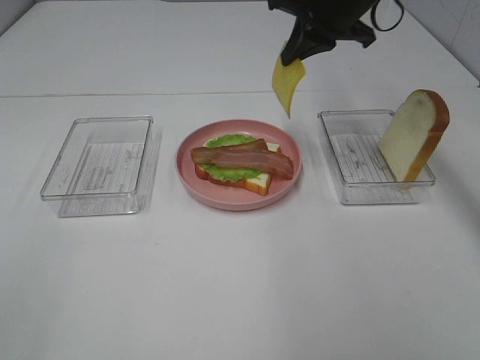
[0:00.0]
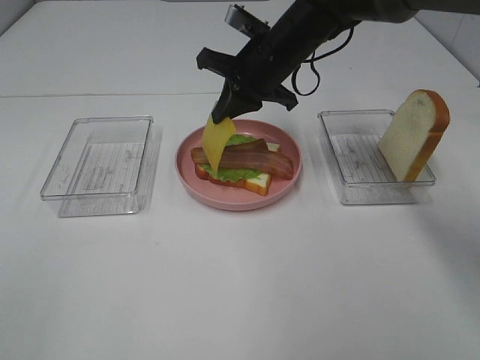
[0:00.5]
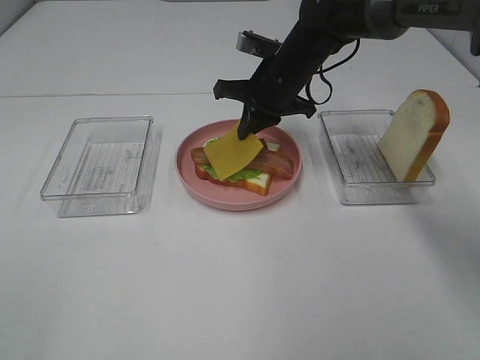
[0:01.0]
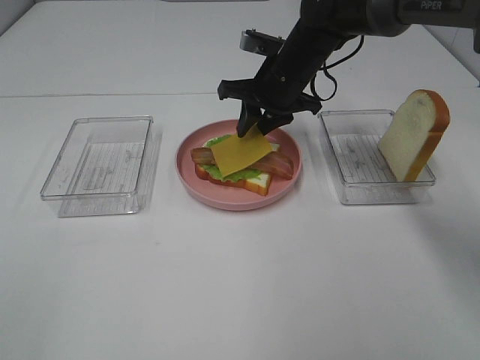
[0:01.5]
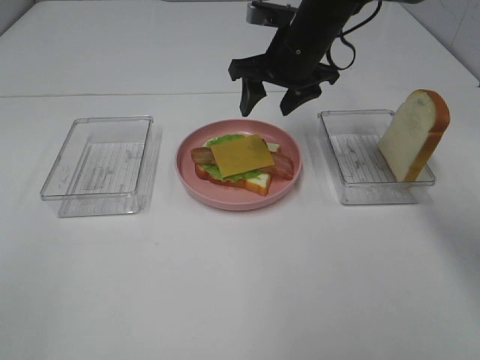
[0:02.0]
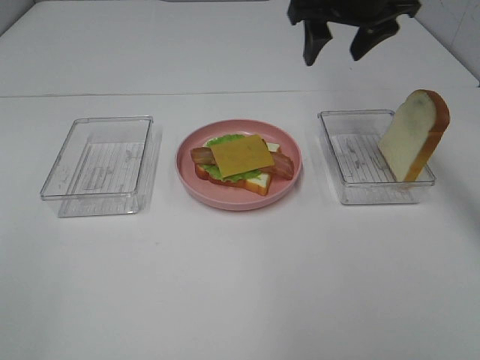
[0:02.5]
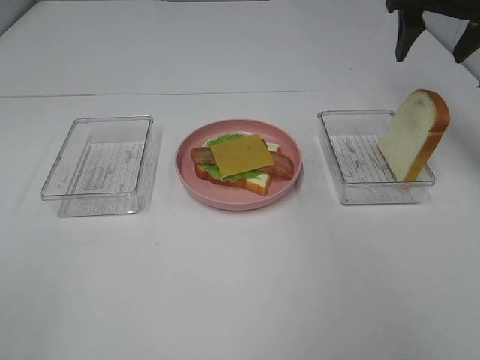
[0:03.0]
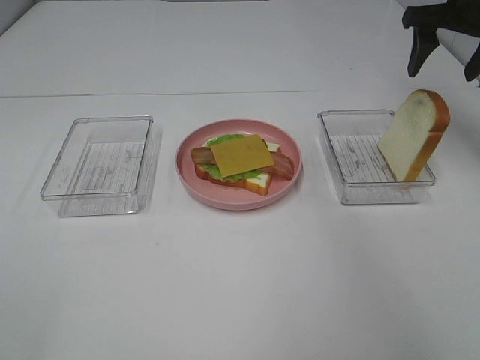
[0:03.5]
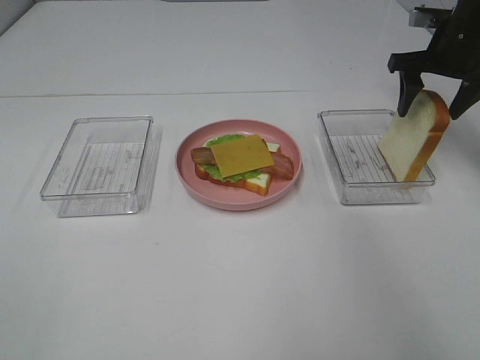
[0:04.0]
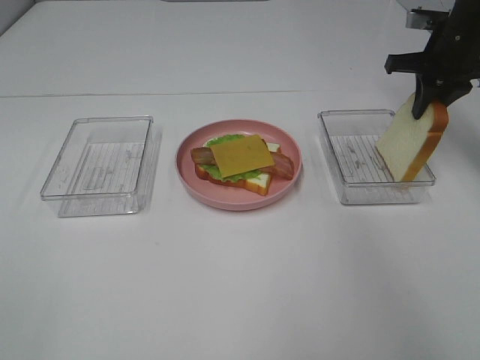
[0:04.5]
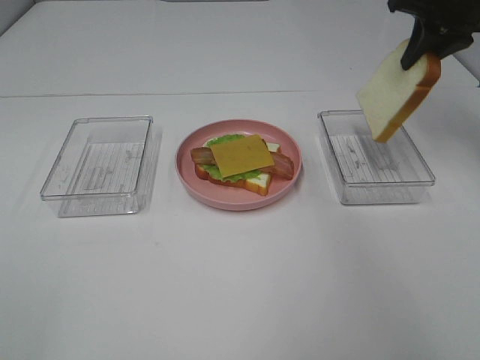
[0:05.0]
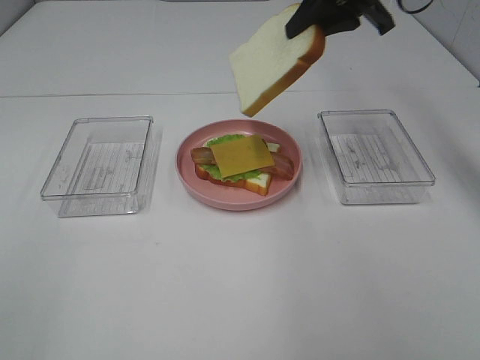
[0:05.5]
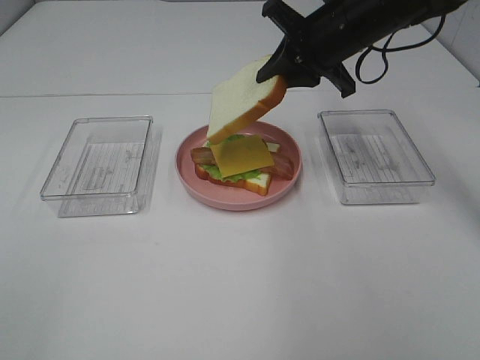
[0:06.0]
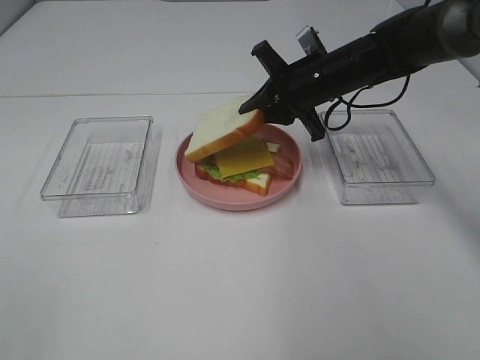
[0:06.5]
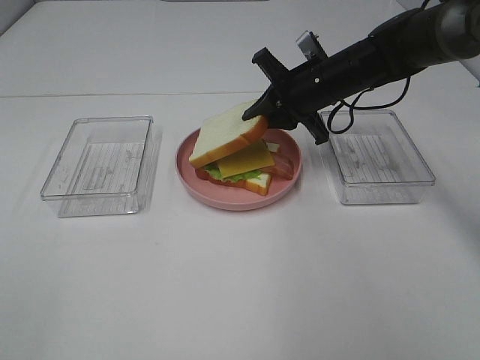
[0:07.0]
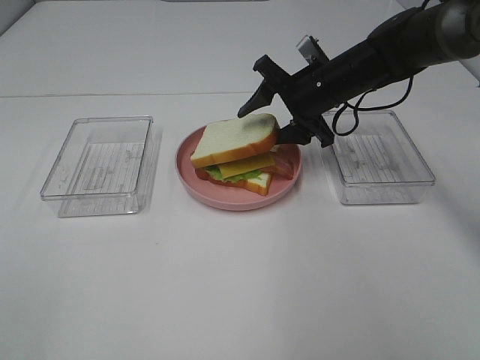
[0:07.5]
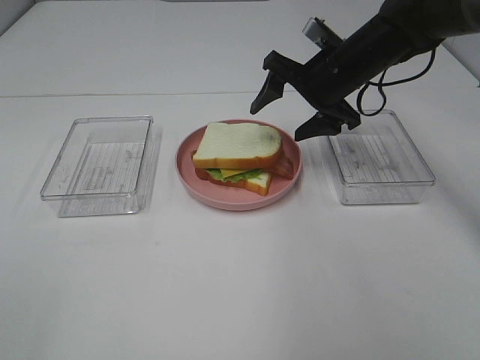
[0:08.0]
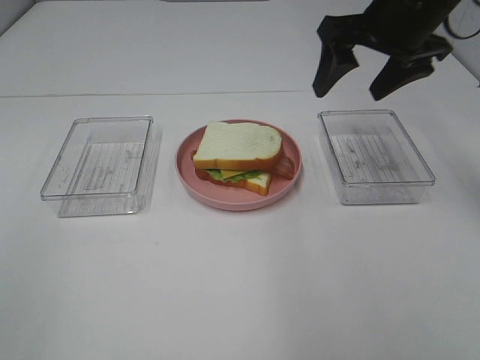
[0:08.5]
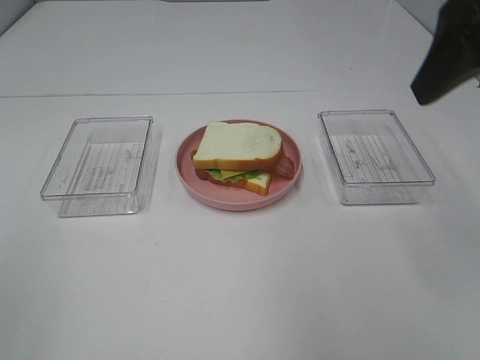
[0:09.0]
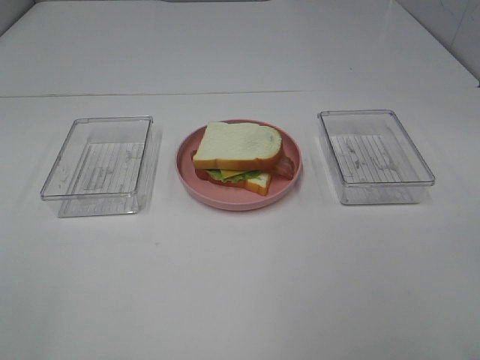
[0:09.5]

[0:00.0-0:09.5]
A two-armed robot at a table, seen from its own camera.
Task of the whole recording: Make sandwiches.
Step, 0:00.0 to 0:01.5: Right hand:place the cheese slice on top of the bacon.
Step, 0:02.0 to 0:04.0: Right hand:grab the bread slice.
Step, 0:04.5 to 0:08.0: Right hand:place the bread slice on the cheese slice.
0:00.0 to 0:02.0: The right gripper goes about 5 cm downward, and opens up.
0:02.0 to 0:04.0: The right gripper heads to the right, covering approximately 20 cm.
0:04.0 to 0:05.5: The right gripper goes about 15 cm to the left and upward, and closes its fingers.
0:05.5 to 0:07.5: The right gripper goes about 15 cm downward, and opens.
0:07.5 to 0:09.5: The right gripper goes approximately 40 cm backward and upward.

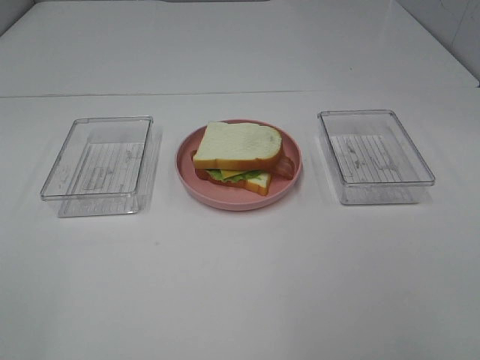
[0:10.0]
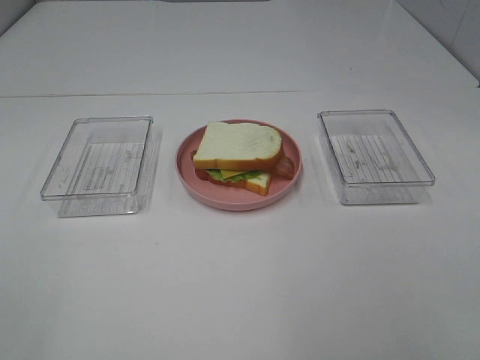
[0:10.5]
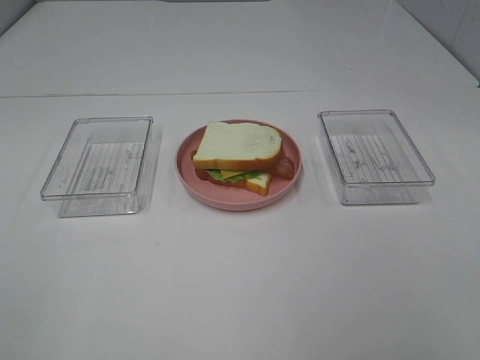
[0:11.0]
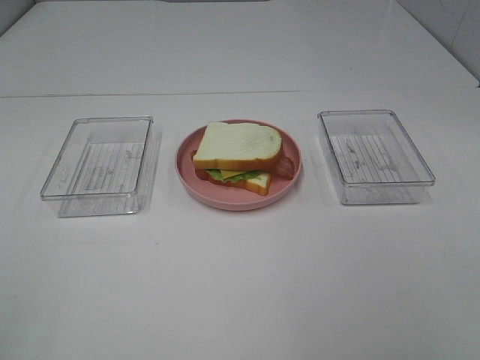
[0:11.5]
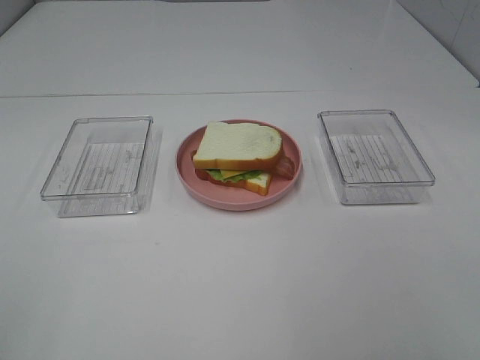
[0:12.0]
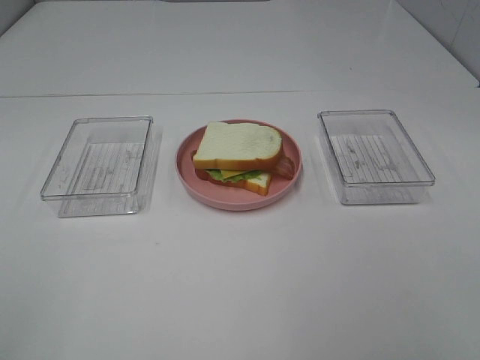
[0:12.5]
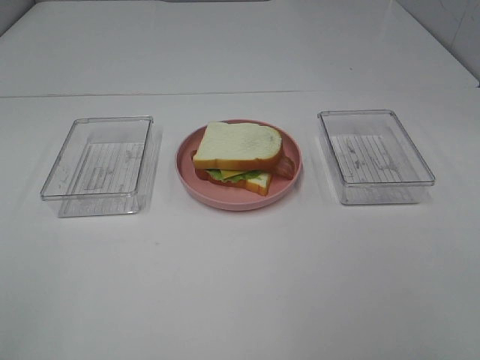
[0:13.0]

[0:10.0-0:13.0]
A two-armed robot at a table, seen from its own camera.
Task of the whole recording: Make sandwiches.
0:11.5 to 0:13.0: Both grippers stay about where they are.

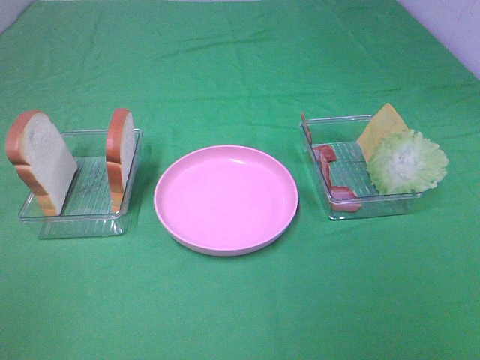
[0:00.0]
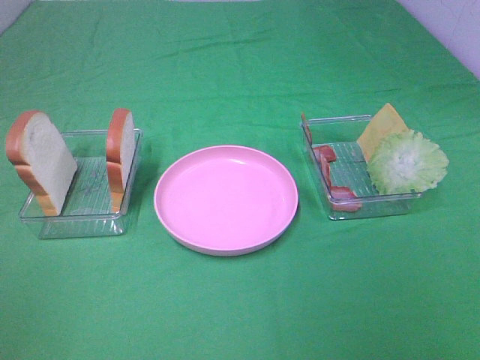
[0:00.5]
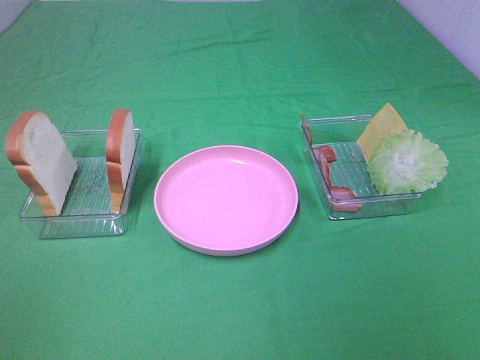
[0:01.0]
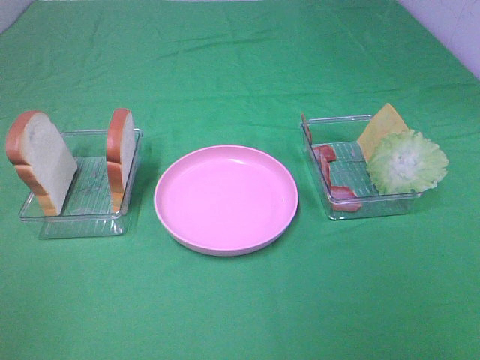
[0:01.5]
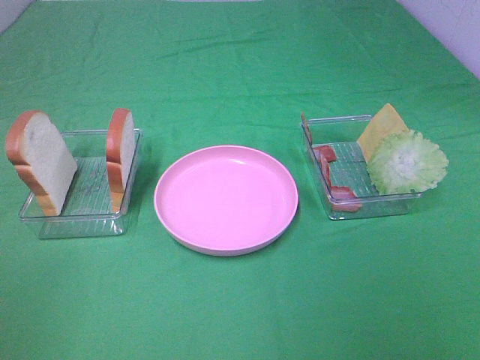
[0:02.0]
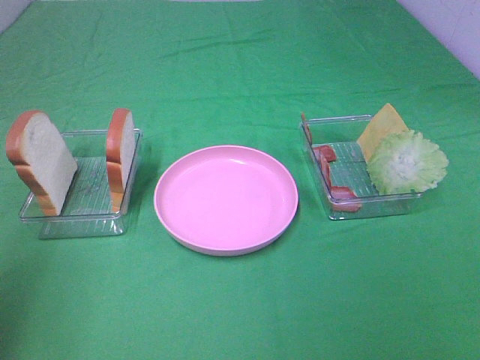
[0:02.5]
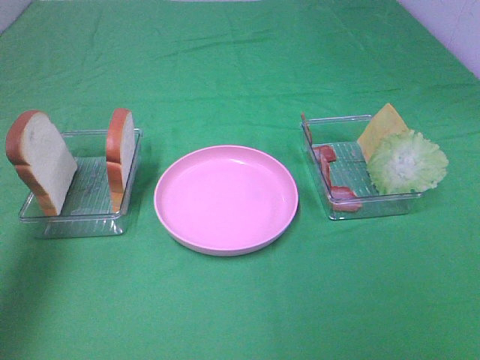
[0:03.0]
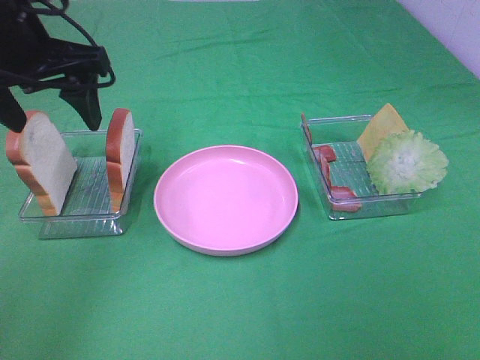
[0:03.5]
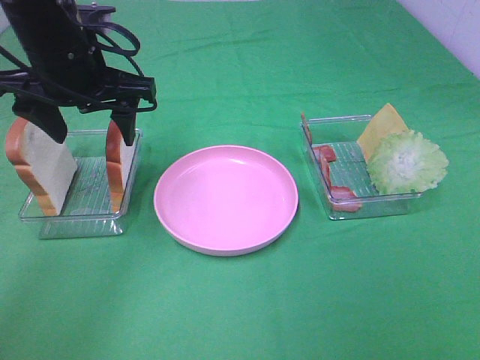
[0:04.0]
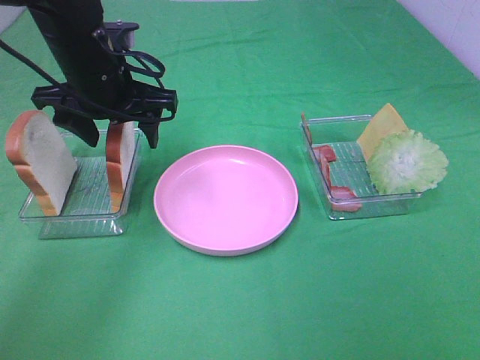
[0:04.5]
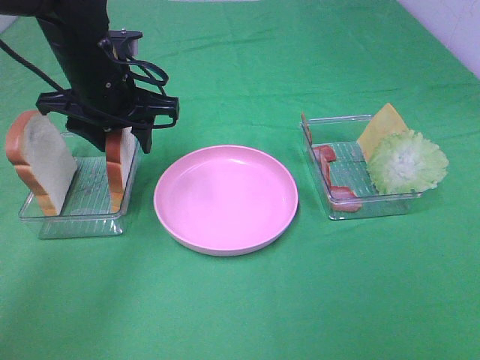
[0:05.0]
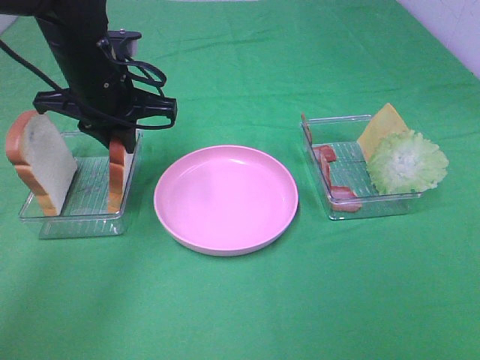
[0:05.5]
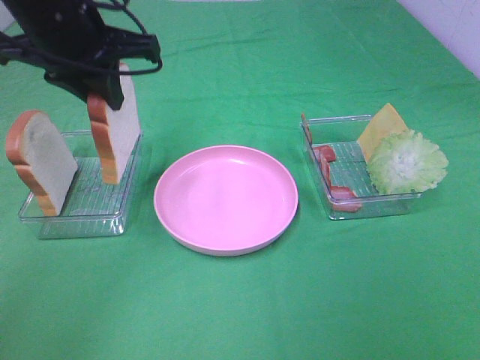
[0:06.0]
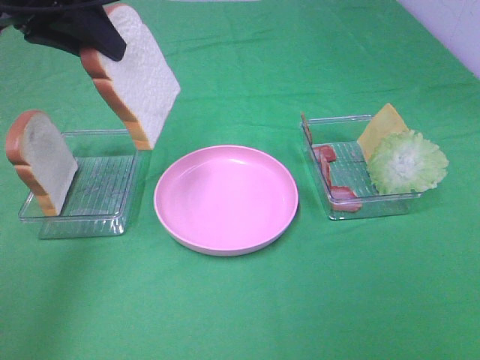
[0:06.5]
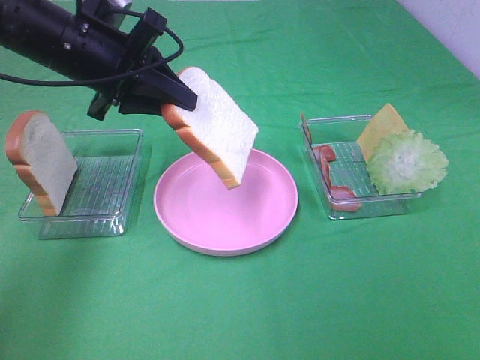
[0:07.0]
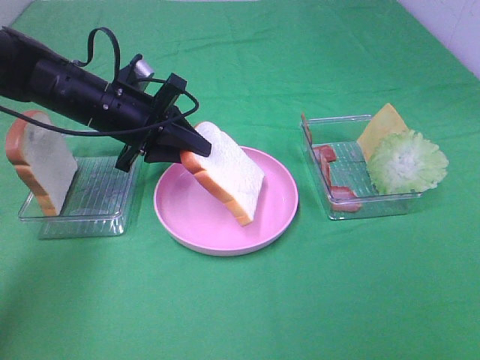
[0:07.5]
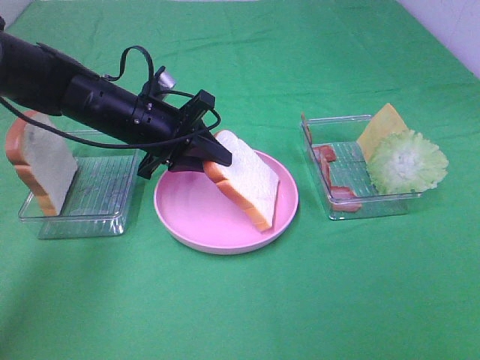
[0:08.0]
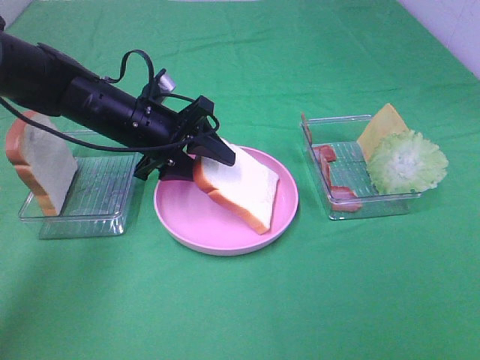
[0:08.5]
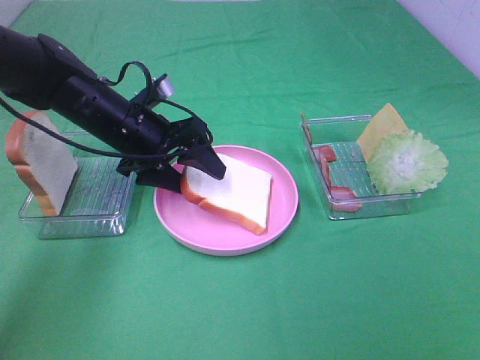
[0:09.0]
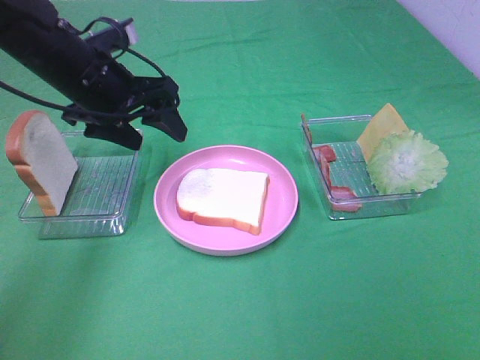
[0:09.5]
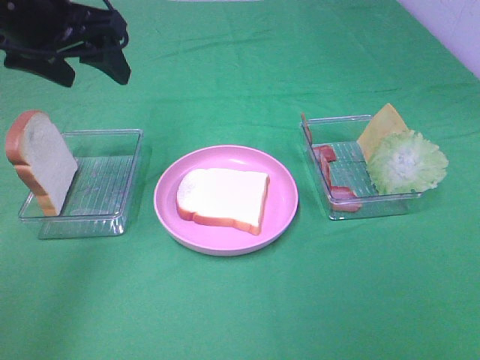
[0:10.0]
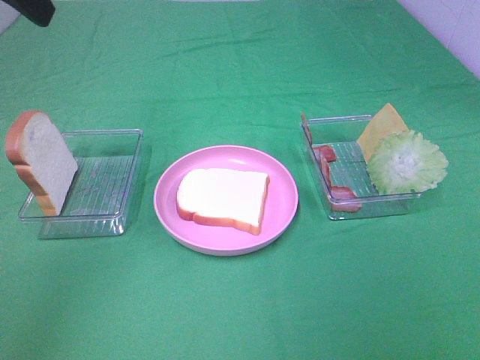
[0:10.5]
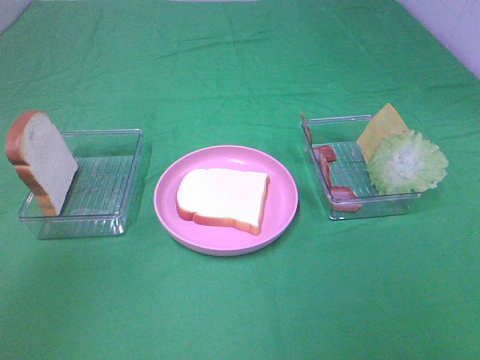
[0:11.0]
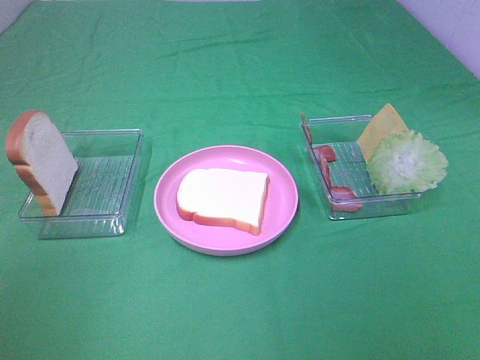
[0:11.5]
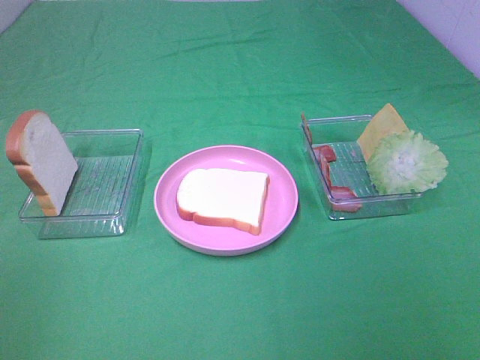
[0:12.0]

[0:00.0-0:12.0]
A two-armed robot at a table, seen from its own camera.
Task of the whole recording: Make sandwiches.
Step, 0:00.0 to 0:05.0: Left hand:grab the bread slice.
Step, 0:05.5 to 0:09.0: Left hand:place the bread slice on the plate.
0:02.0 to 0:04.0: The left gripper goes some 35 cm forward and to the right.
0:04.0 to 0:06.0: The left gripper goes approximately 5 cm upward, and closes up.
0:06.0 to 0:08.0: The left gripper is displaced downward by some 15 cm.
0:08.0 to 0:10.0: The left gripper travels upward by approximately 15 cm, and opens its fingers.
0:10.0 to 0:12.0: The left gripper shifts roughly 30 cm backward.

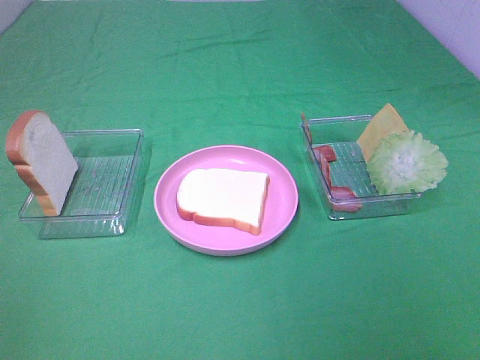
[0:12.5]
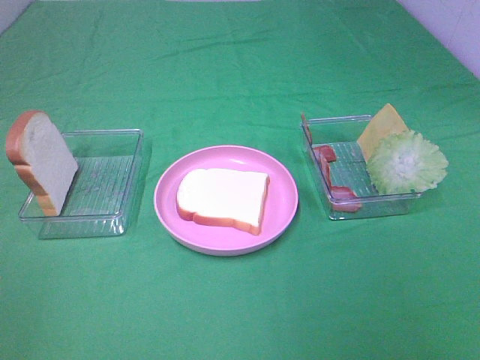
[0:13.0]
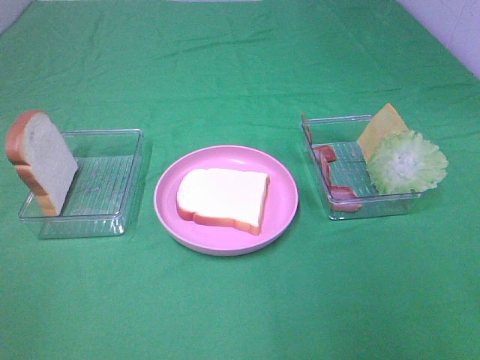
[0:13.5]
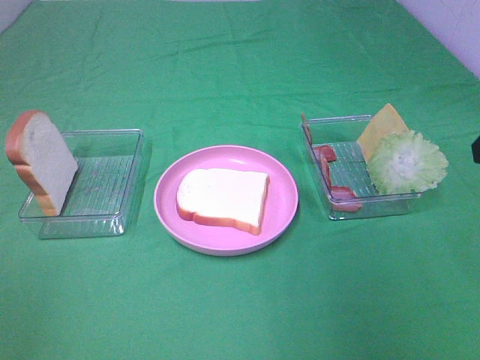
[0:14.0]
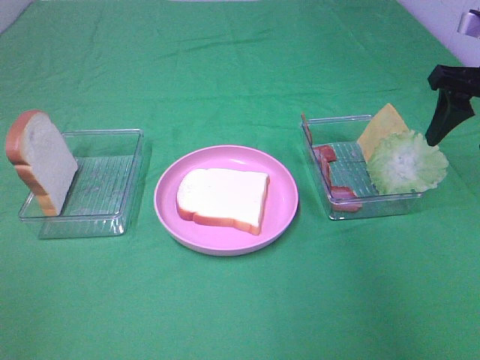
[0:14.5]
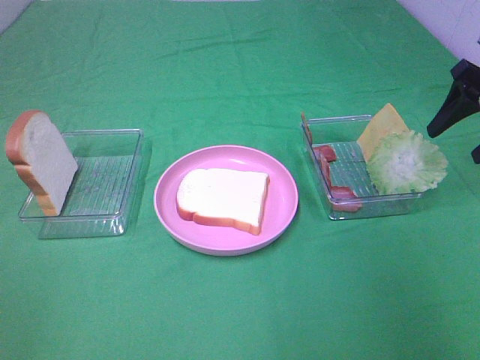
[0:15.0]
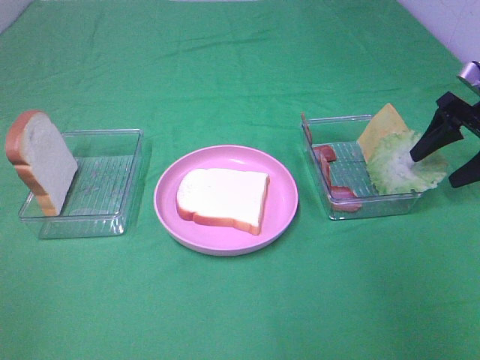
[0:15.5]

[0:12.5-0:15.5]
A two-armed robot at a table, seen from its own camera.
Task of the whole recording: Make sandwiches.
0:14.0 to 0:15.5: The right gripper travels forward, downward and to the right by some 20 cm.
